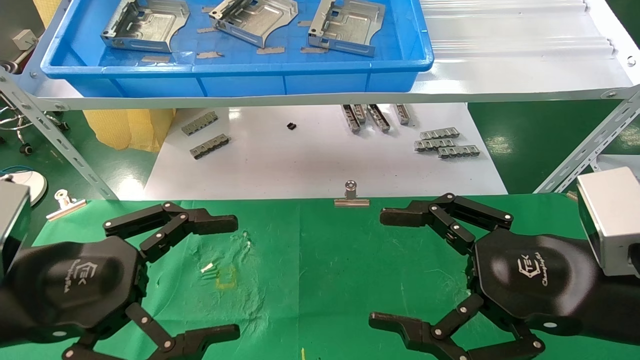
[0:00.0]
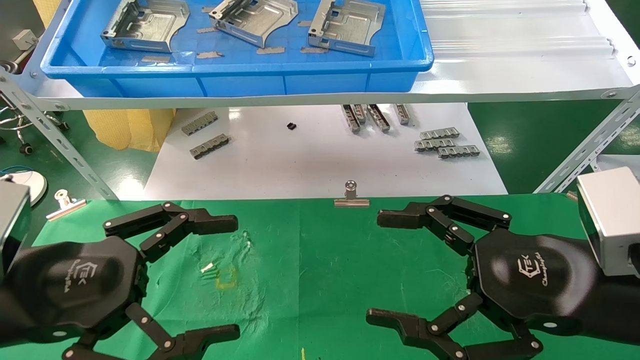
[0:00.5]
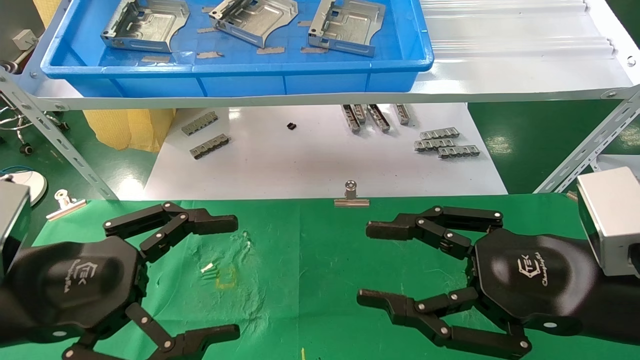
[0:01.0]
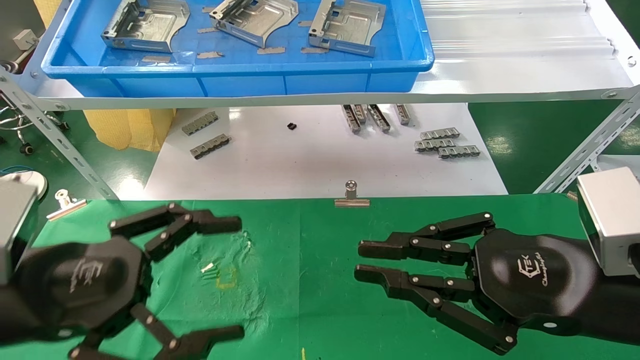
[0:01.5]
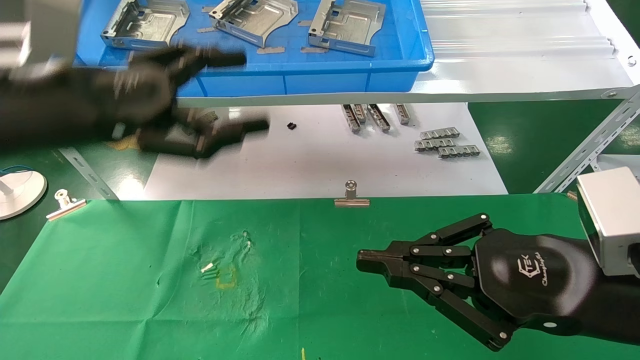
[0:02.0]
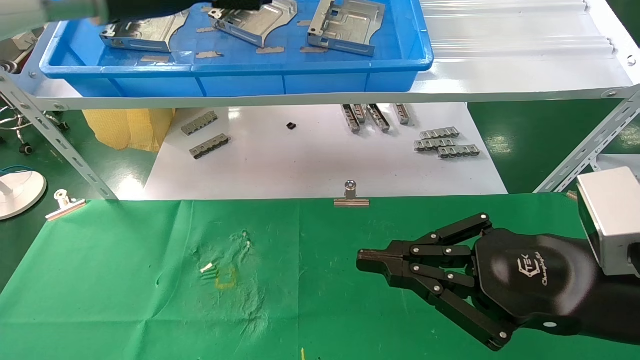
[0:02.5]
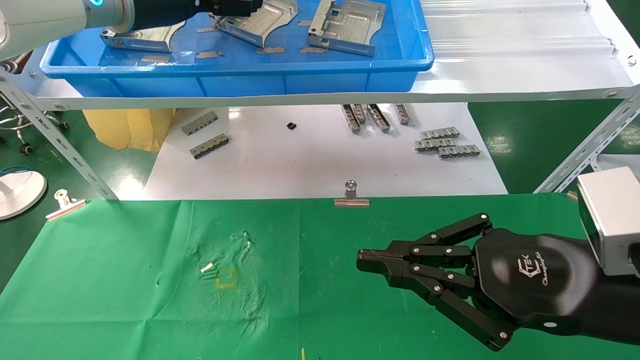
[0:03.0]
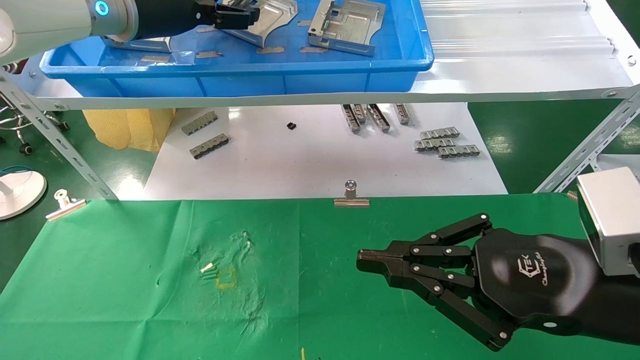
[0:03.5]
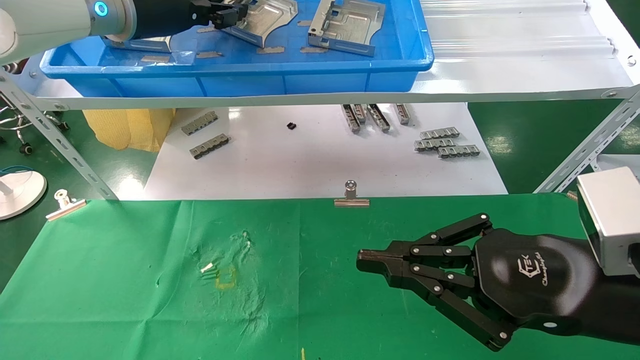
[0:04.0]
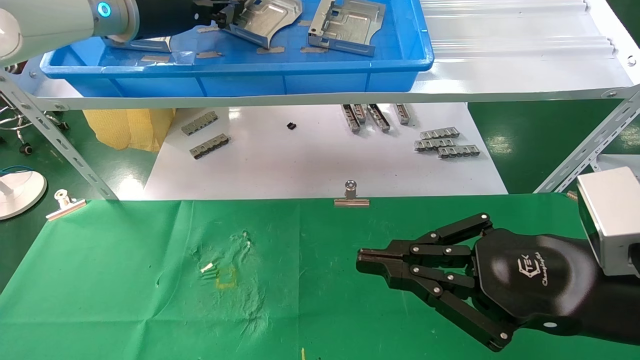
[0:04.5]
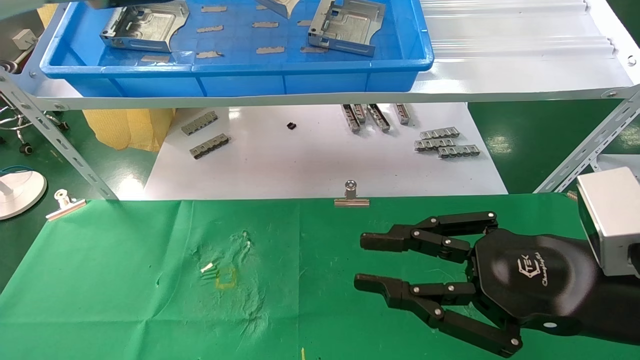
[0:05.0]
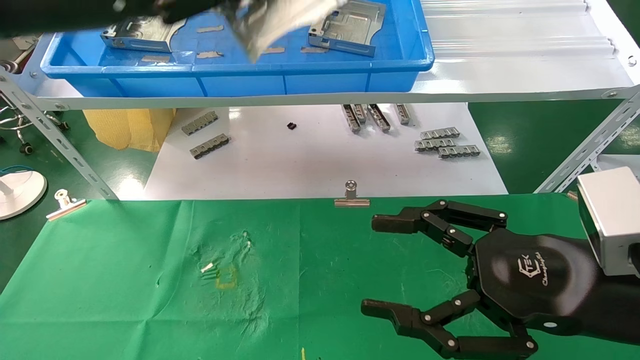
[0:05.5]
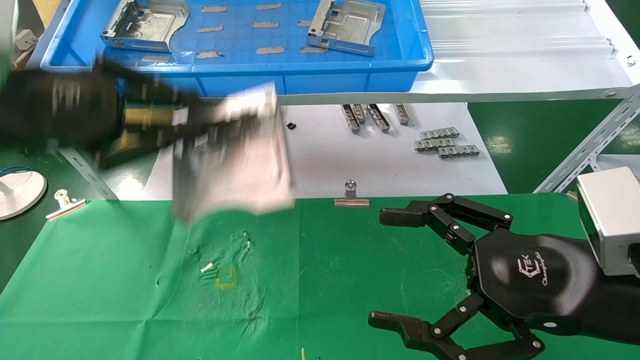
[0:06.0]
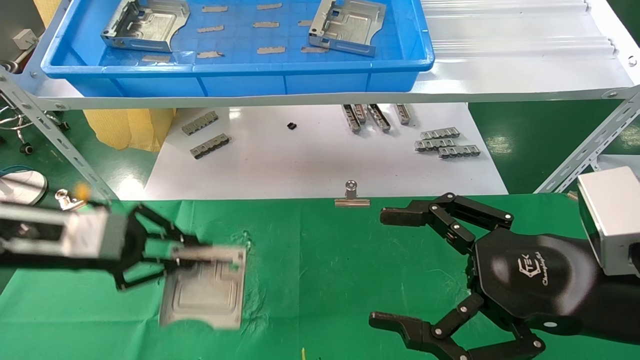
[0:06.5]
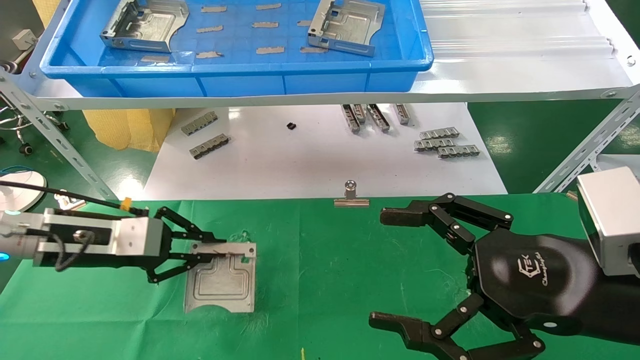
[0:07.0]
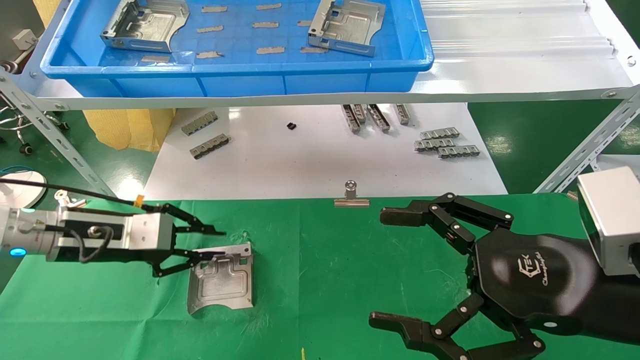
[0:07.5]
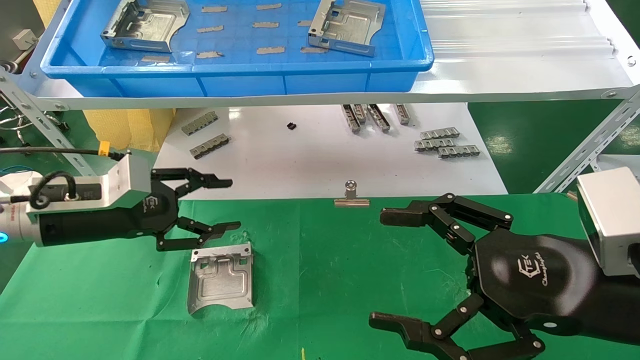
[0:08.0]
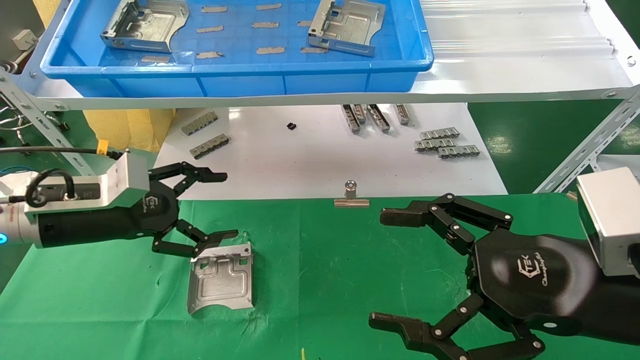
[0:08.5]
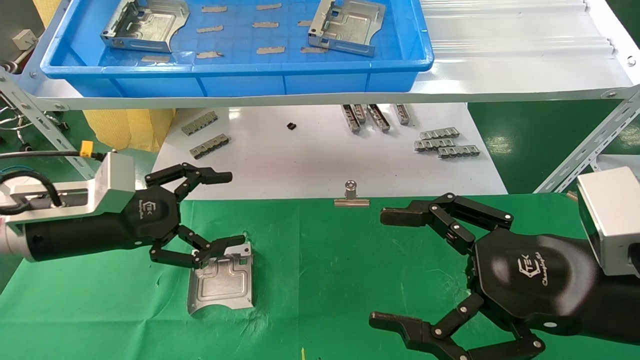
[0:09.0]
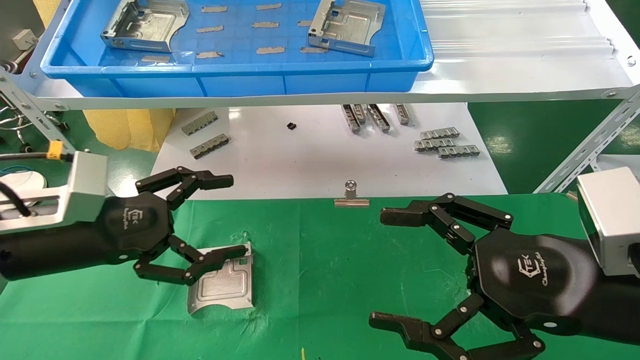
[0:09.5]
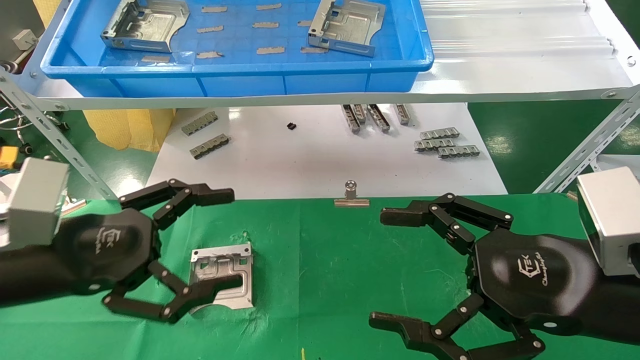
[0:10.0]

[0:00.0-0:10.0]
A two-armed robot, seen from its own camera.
Task of the whole recording: use the mechanical arm to pick up the parts and place them on the table.
Step, 0:02.0 to 0:04.5: Pick up the hard drive bracket from the feeding area.
Step, 0:05.0 to 0:07.5: Place the hard drive bracket into the box.
0:00.0 to 0:02.0: The right gripper closes up; the left gripper moves upward and forward, about 15 cm.
0:02.0 to 0:04.0: The left gripper is displaced forward and upward by some 20 cm, and closes.
0:04.0 to 0:06.0: The left gripper is displaced backward, downward and to the left by about 20 cm, and closes up. The right gripper opens up.
0:06.0 to 0:08.0: The left gripper goes about 15 cm downward and forward, and opens.
0:08.0 to 0:10.0: The left gripper shifts roughly 10 cm backward, and opens.

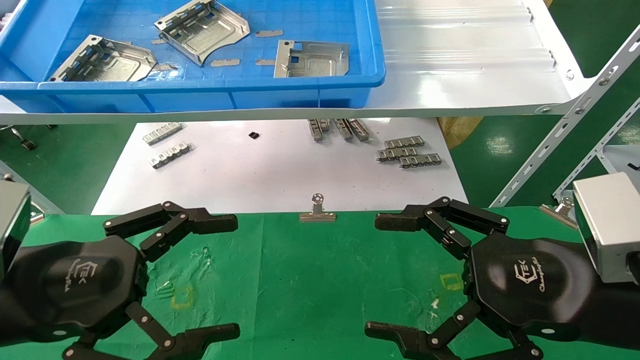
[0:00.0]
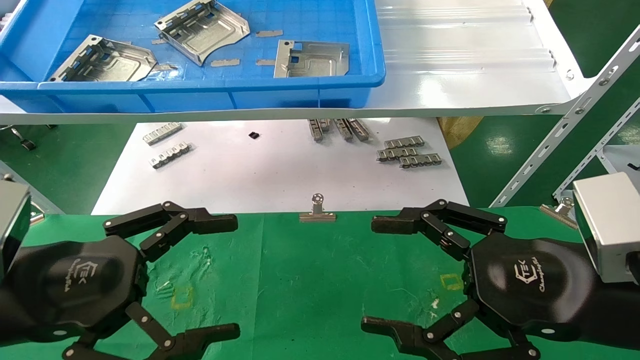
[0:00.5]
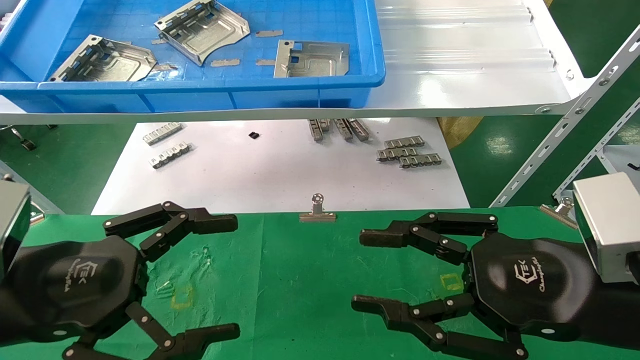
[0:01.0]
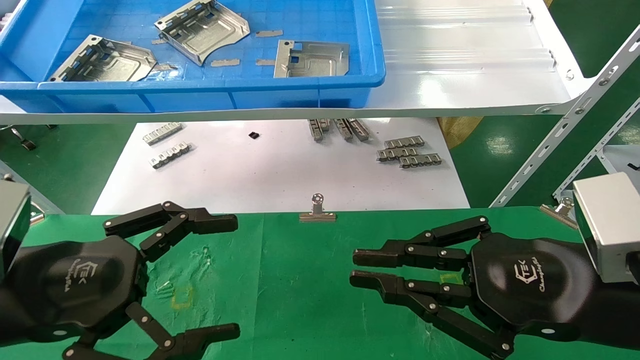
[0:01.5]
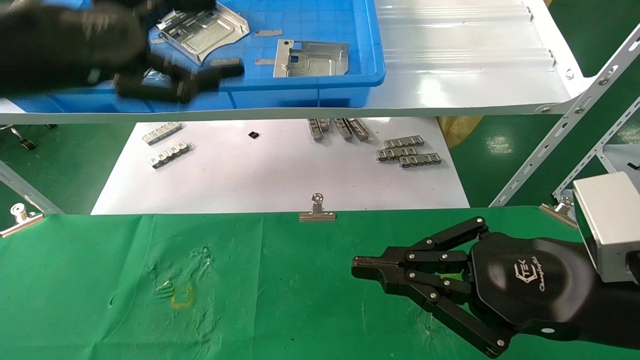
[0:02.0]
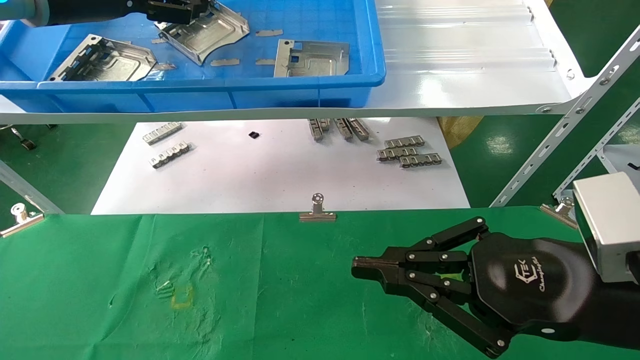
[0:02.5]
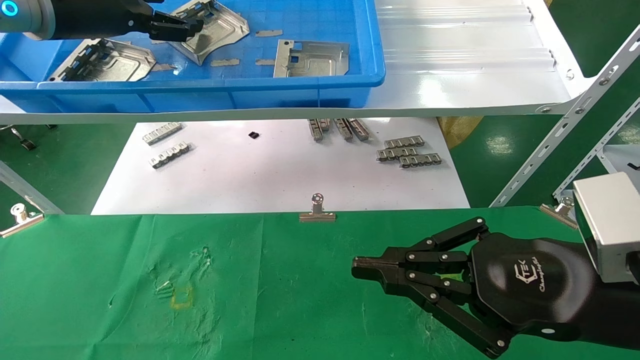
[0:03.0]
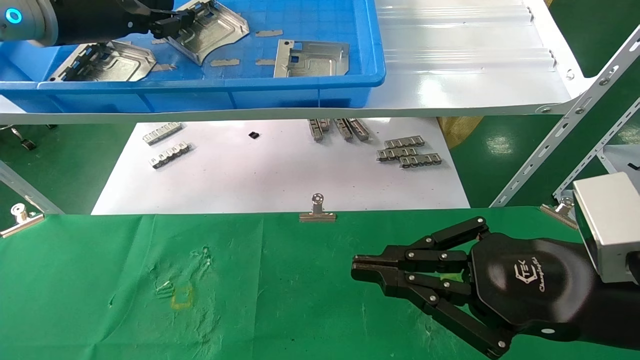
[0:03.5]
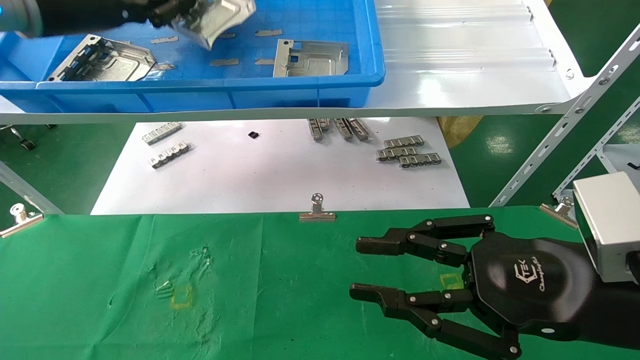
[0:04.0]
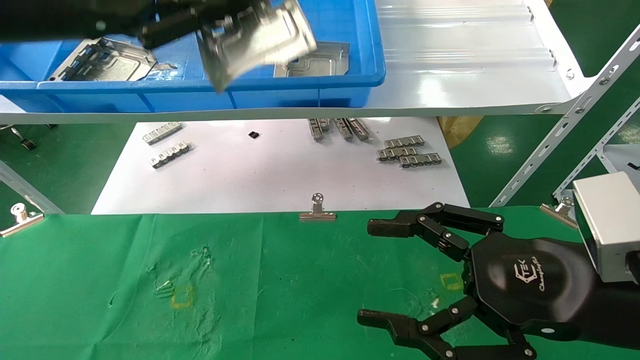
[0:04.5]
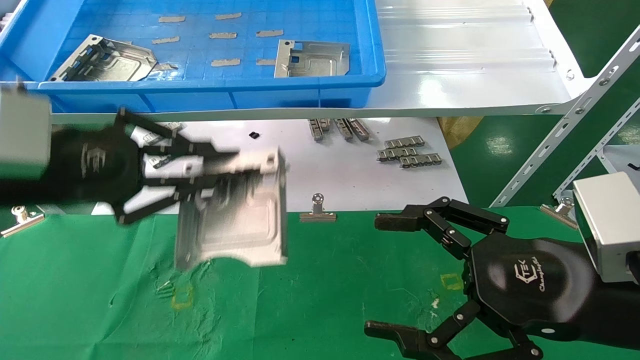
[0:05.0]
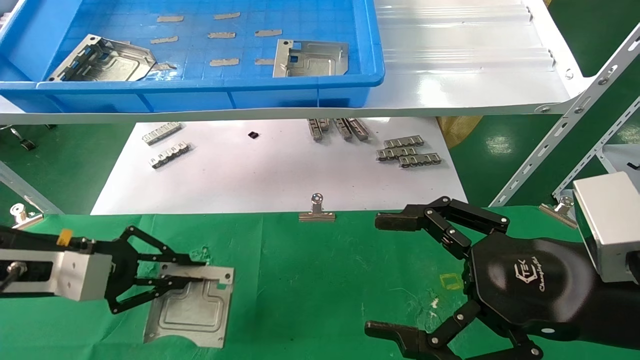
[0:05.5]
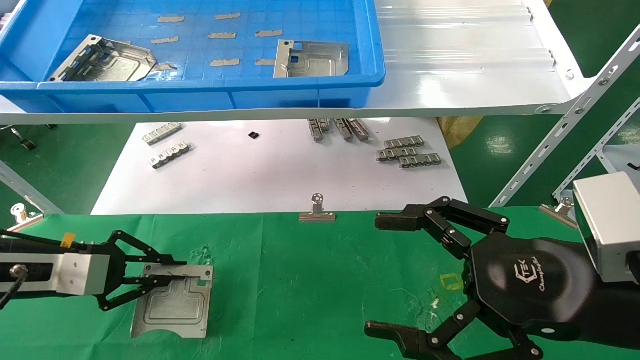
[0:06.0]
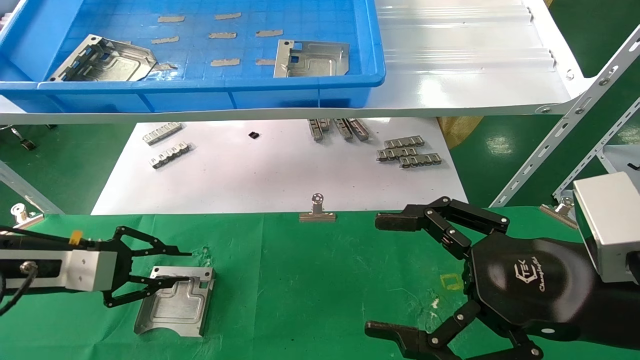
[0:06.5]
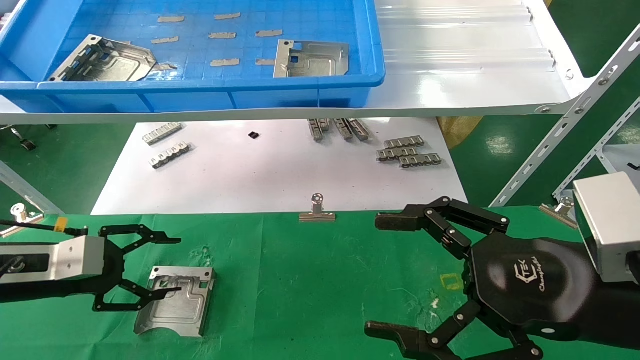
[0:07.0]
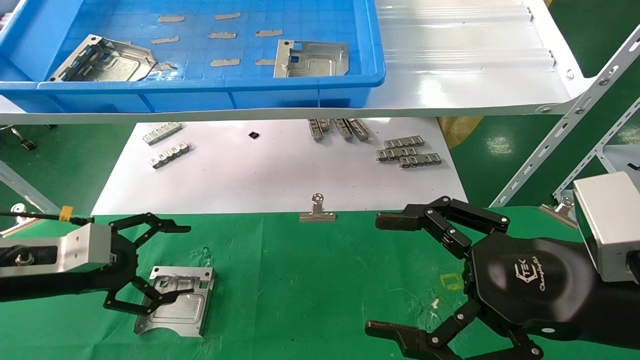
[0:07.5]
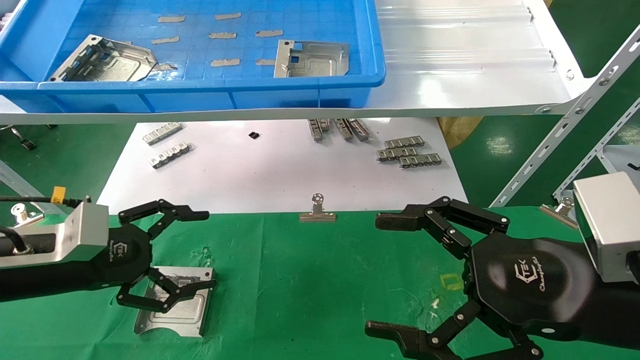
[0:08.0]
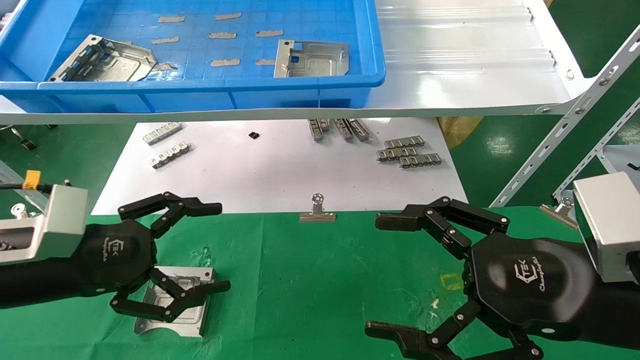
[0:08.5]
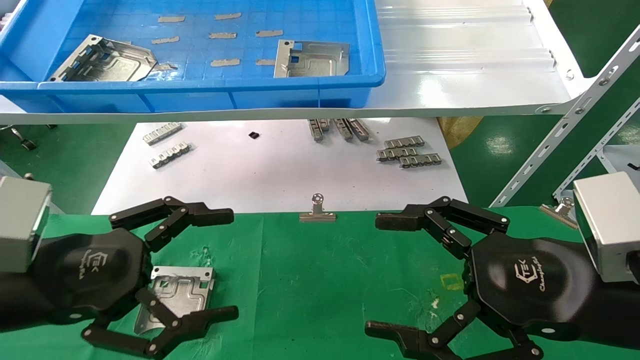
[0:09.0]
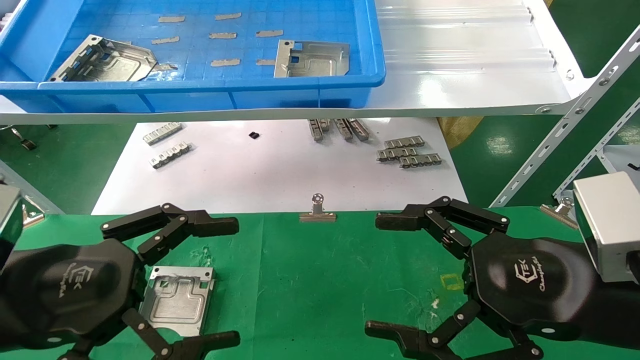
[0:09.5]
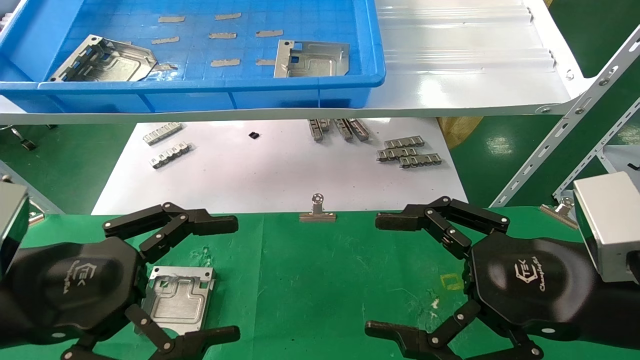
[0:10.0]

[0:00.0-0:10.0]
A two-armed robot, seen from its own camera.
Task of the whole recording: use the mechanical arm to pick up the parts and place them on the table.
Step, 0:02.0 to 0:03.5: Pick up the hard drive bracket from the feeding area.
Step, 0:04.0 to 0:06.5: Place the hard drive bracket into the box.
0:00.0 to 0:02.0: The left gripper shifts roughly 20 cm upward and forward; the right gripper closes its fingers.
0:02.0 to 0:04.0: The left gripper goes roughly 10 cm forward and upward, and closes up.
0:04.0 to 0:06.0: The left gripper shifts some 30 cm downward, while the right gripper opens its fingers.
0:06.0 to 0:08.0: The left gripper changes place by about 5 cm, and opens its fingers.
0:08.0 to 0:10.0: The left gripper shifts roughly 10 cm backward and to the right.
